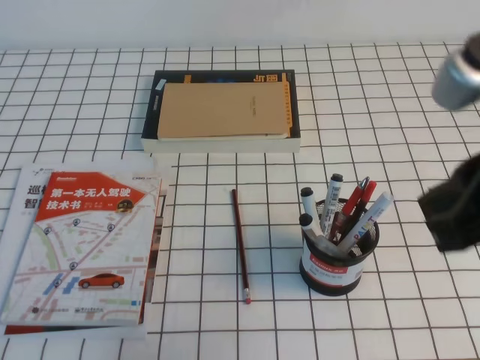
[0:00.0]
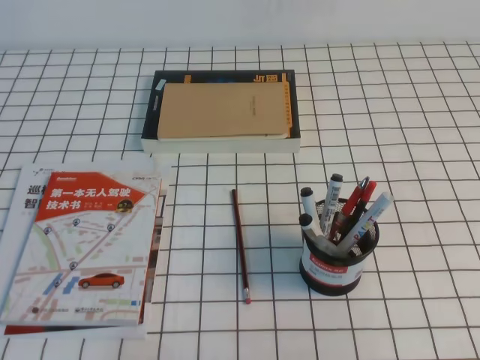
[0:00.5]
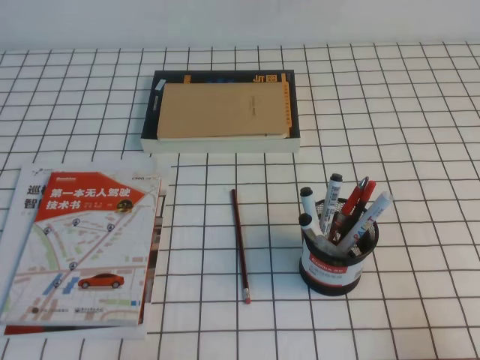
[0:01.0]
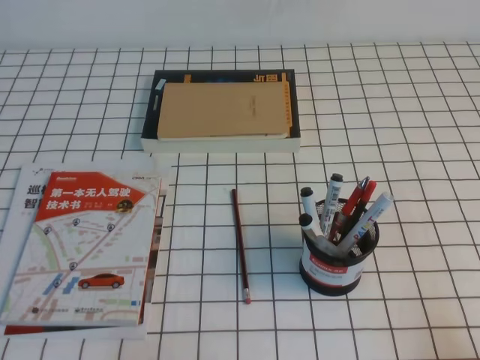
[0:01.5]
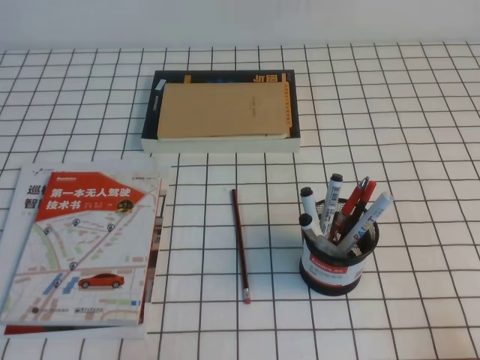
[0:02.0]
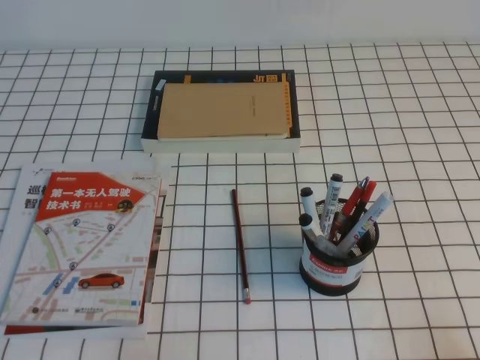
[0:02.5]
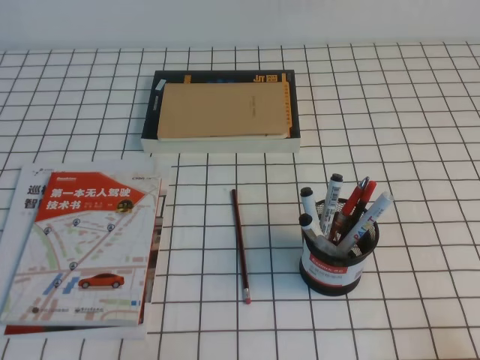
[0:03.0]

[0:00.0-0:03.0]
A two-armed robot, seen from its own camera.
Step, 0:00.0 to 0:03.0: Pick up the pen from the pen holder.
0:00.0 to 0:01.5: The right gripper is displaced downward, to the right and backward by approximately 30 cm.

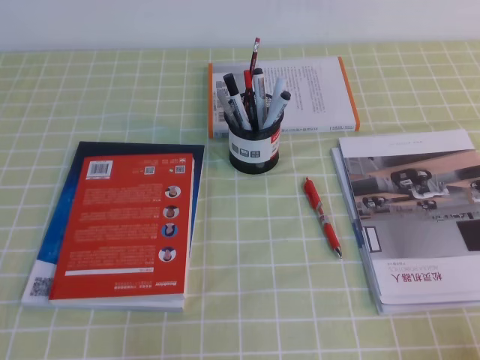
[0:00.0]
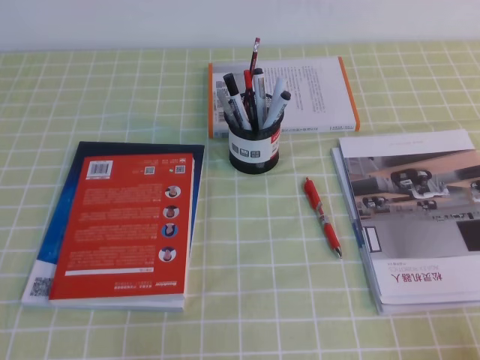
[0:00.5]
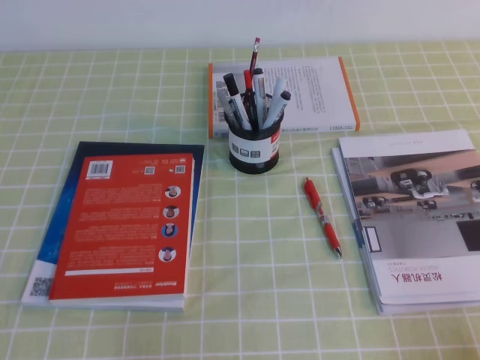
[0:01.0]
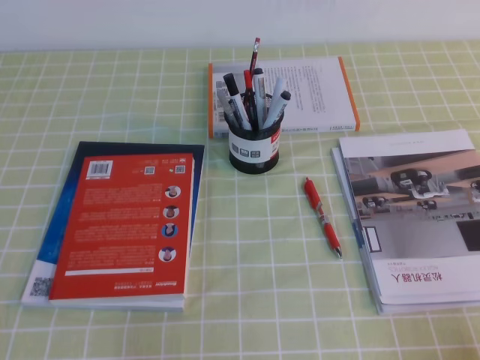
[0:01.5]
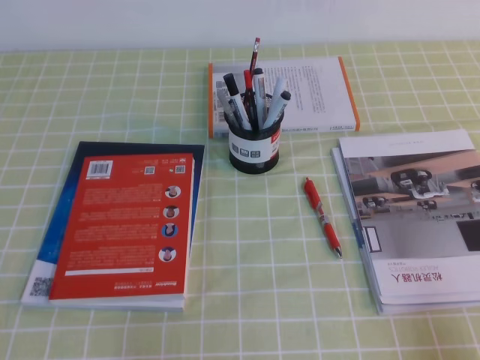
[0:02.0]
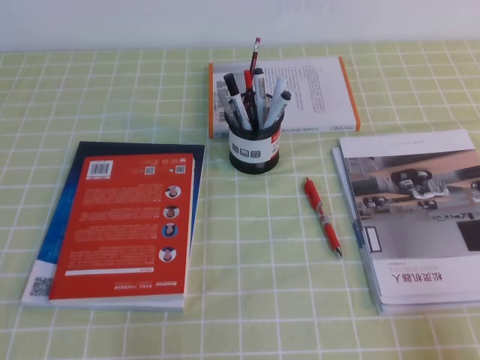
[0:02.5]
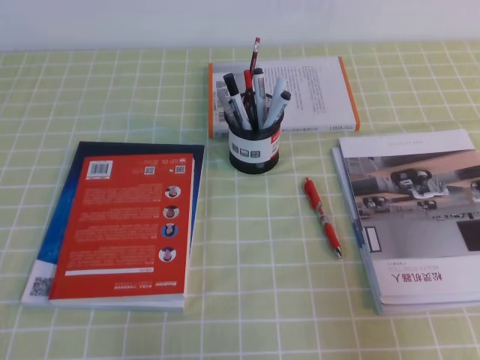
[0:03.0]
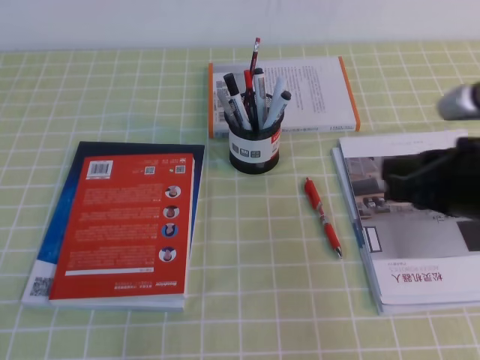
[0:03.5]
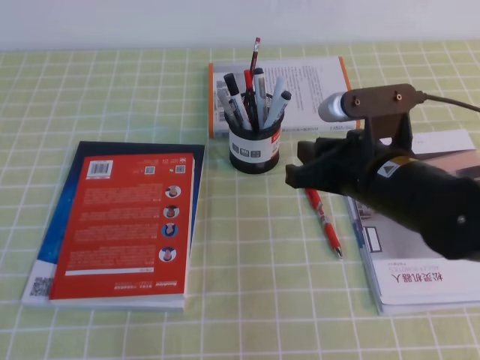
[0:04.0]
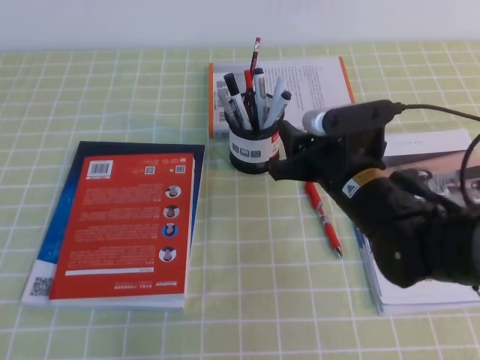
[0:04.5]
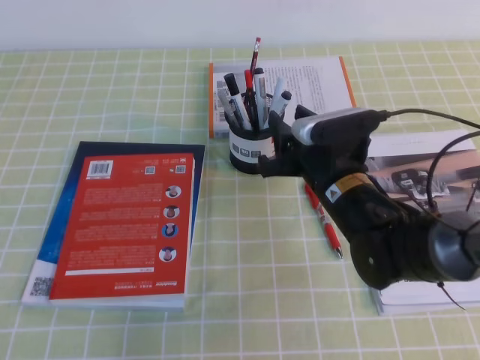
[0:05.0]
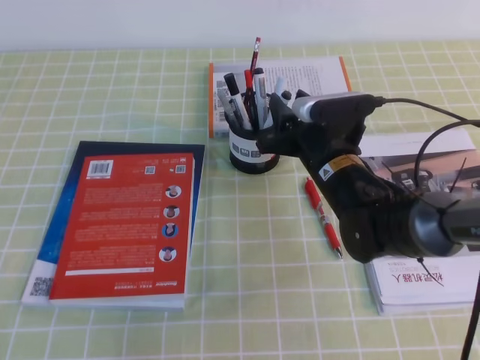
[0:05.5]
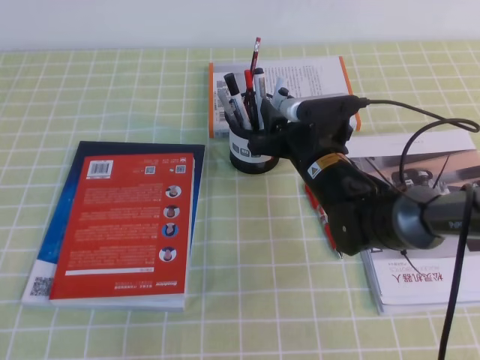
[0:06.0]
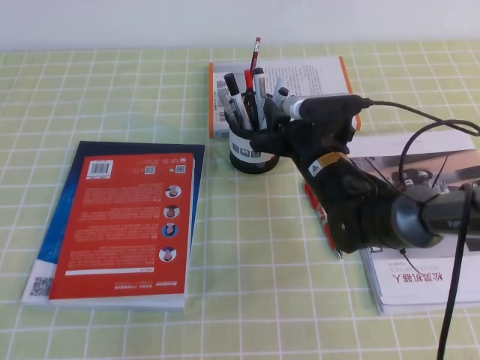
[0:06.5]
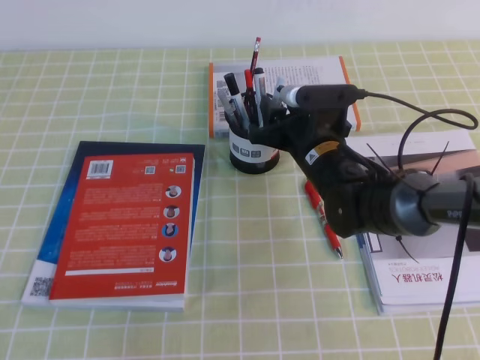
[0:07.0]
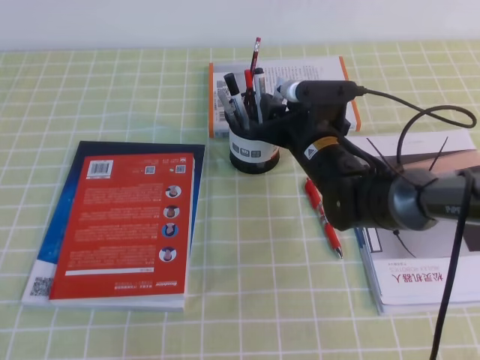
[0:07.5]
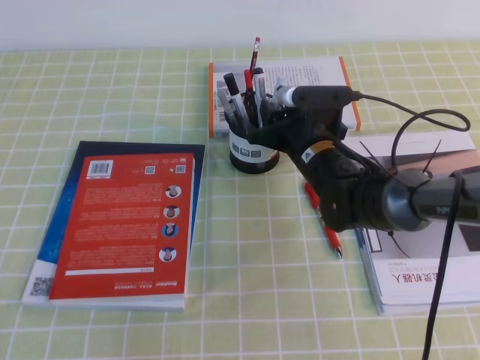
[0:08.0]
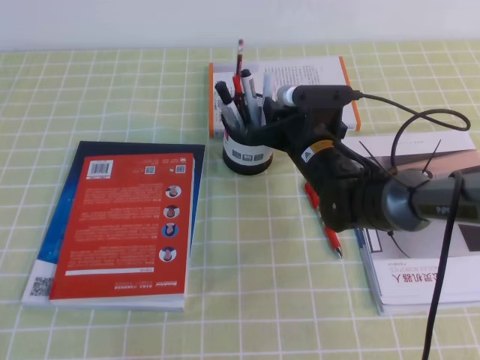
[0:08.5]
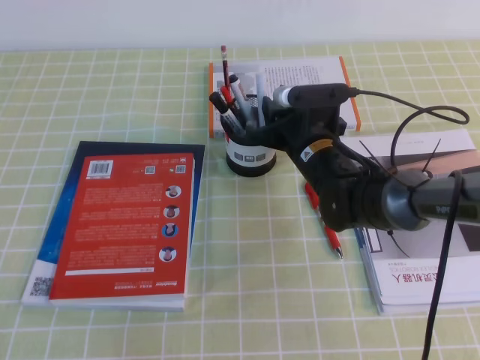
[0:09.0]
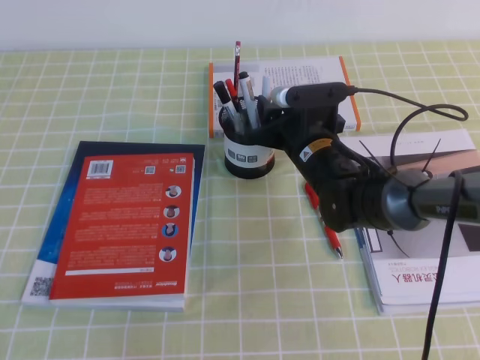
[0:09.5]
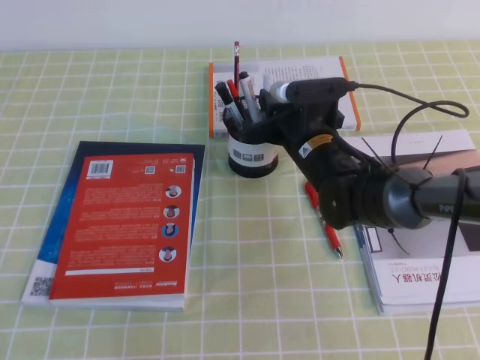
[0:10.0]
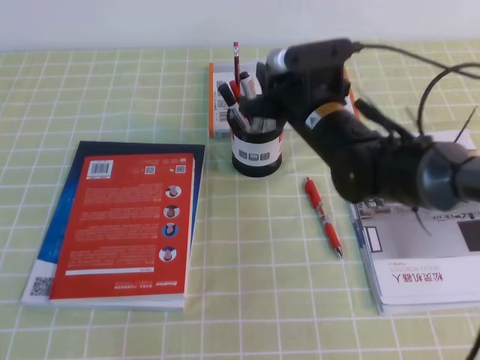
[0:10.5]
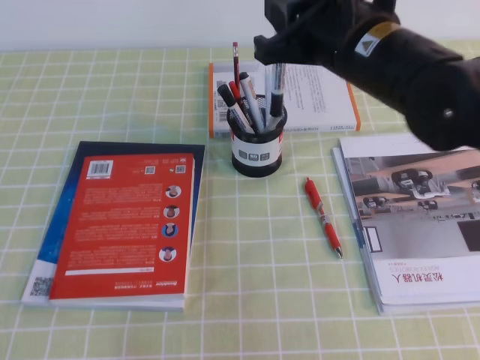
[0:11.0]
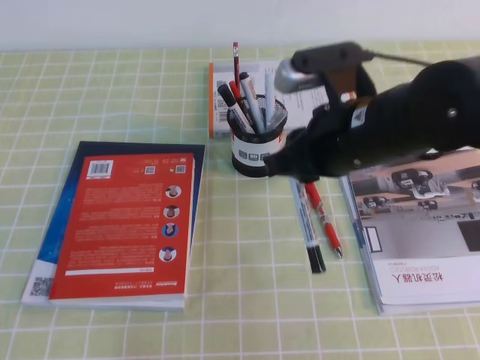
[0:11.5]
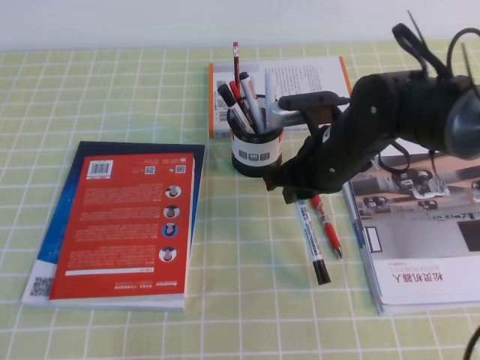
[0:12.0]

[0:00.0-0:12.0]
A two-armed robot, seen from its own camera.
0:02.0 to 0:04.0: The right gripper shifts some 30 cm forward and to the left, and opens.
0:04.0 to 0:06.0: The right gripper goes about 15 cm forward, downward and to the left, and opens.
0:06.0 to 0:08.0: There are only small adjustments of the grippers.
0:08.0 to 0:10.0: The right gripper closes its fingers.
0:10.0 to 0:12.0: The right gripper moves about 15 cm upward and comes back.

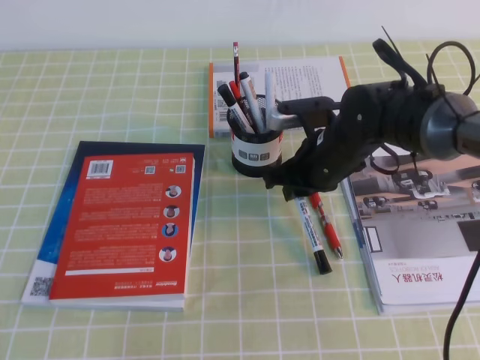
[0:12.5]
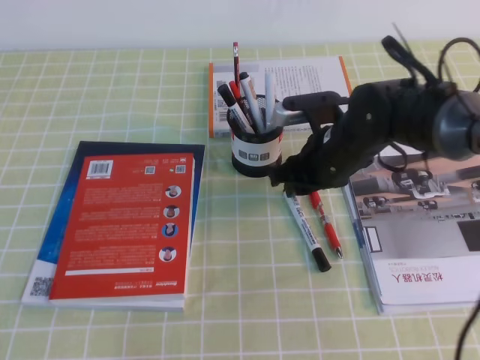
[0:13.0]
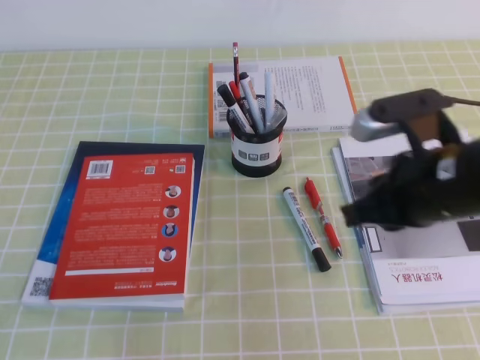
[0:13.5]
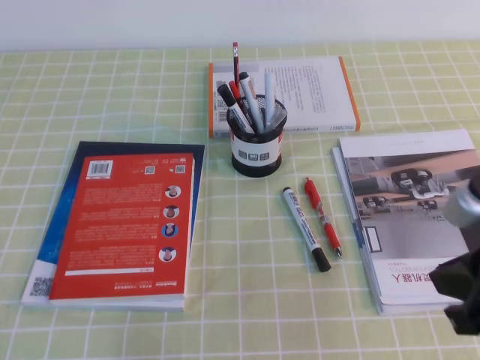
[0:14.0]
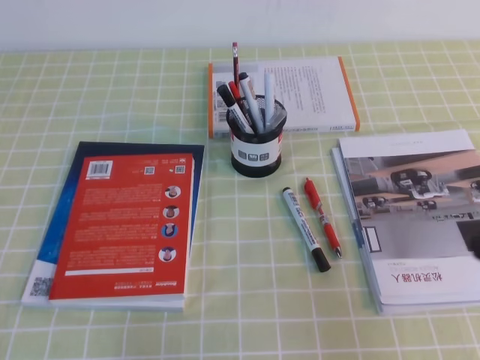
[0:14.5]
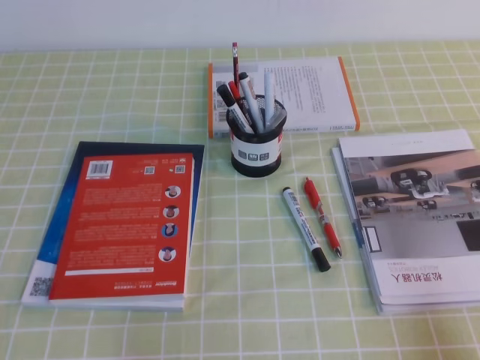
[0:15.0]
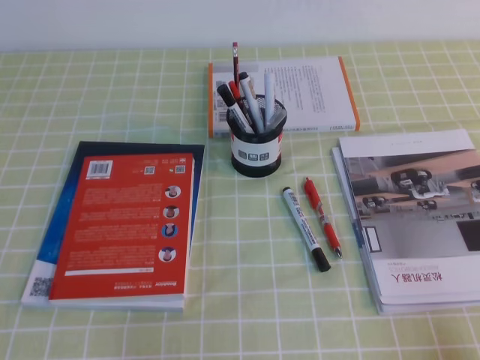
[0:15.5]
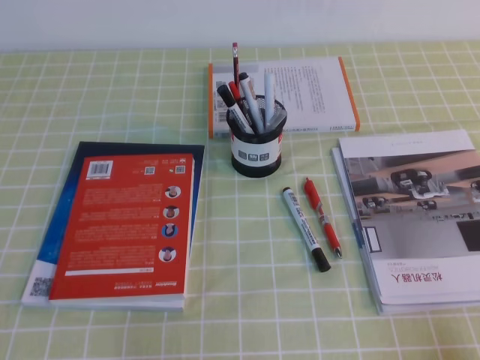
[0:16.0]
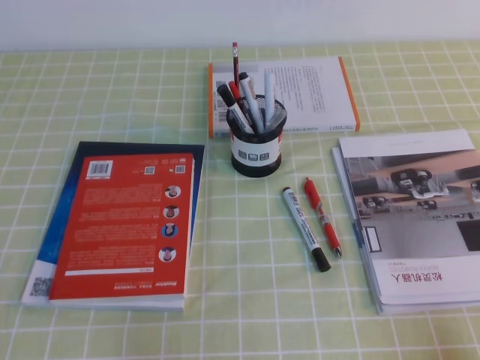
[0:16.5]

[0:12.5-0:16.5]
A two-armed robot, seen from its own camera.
Step, 0:12.5 to 0:16.5: Pick up the pen from the pen holder.
0:12.5 to 0:14.5: The right gripper shifts roughly 30 cm backward and to the right, and closes.
0:14.5 to 0:16.5: The right gripper shifts approximately 15 cm downward, backward and to the right.
